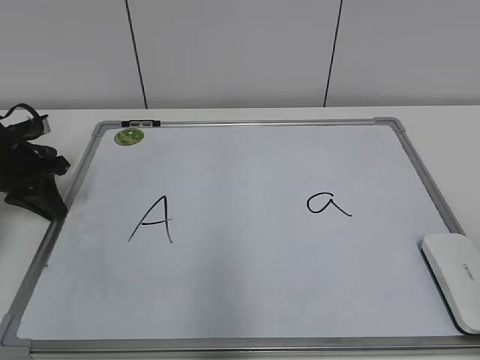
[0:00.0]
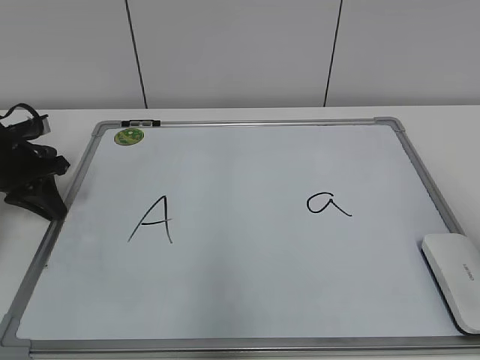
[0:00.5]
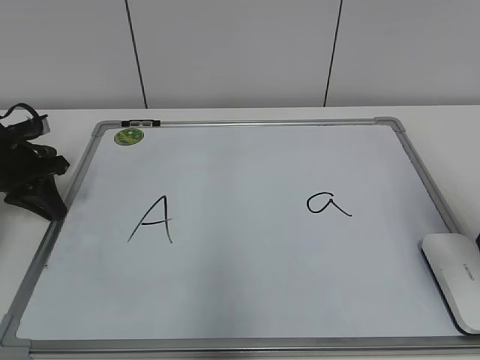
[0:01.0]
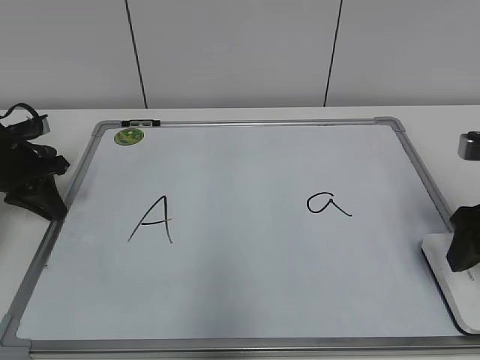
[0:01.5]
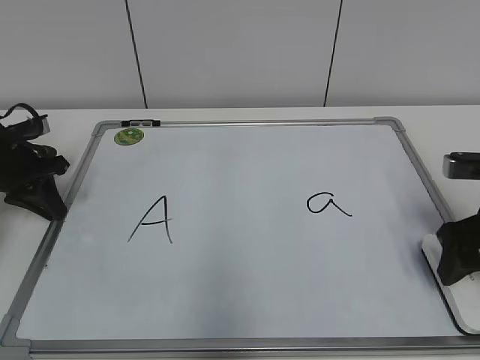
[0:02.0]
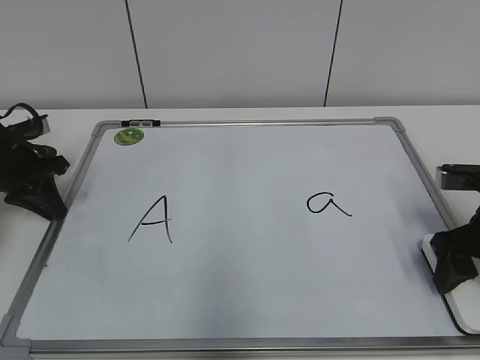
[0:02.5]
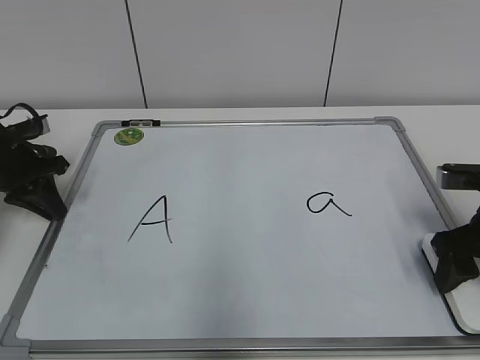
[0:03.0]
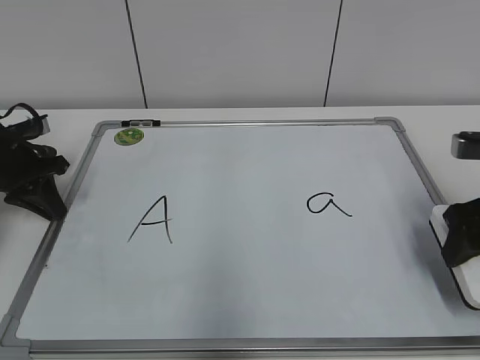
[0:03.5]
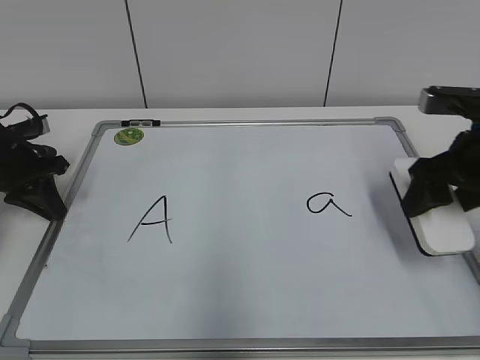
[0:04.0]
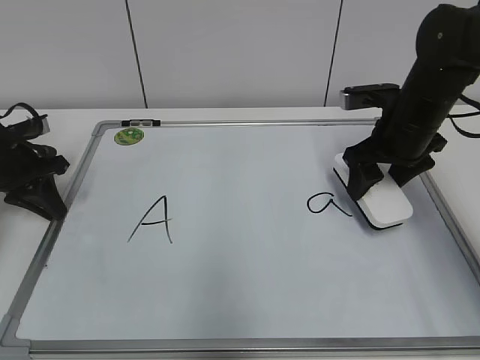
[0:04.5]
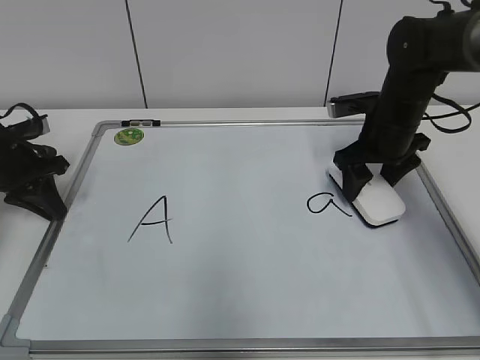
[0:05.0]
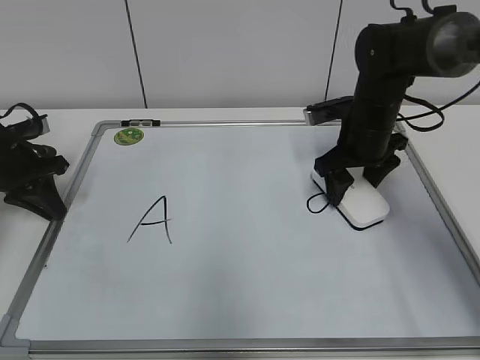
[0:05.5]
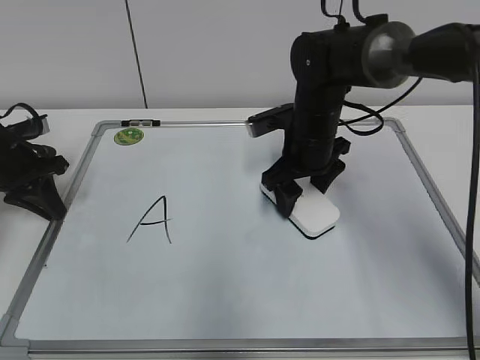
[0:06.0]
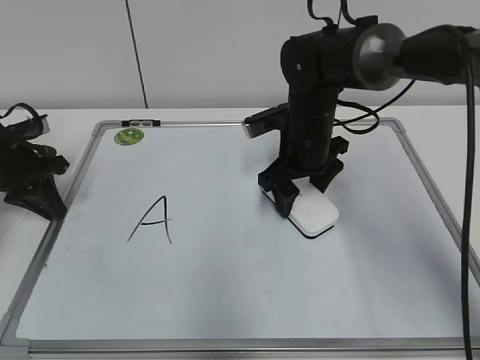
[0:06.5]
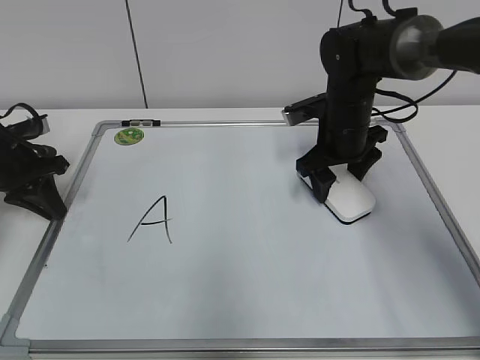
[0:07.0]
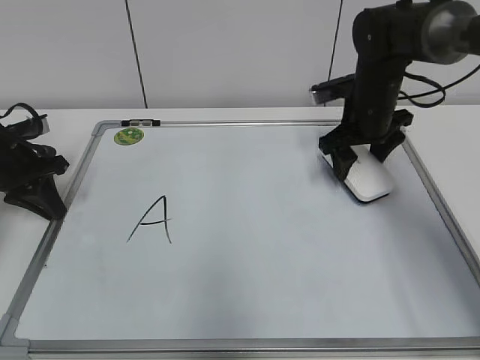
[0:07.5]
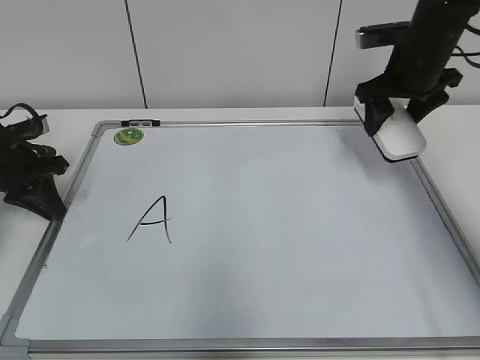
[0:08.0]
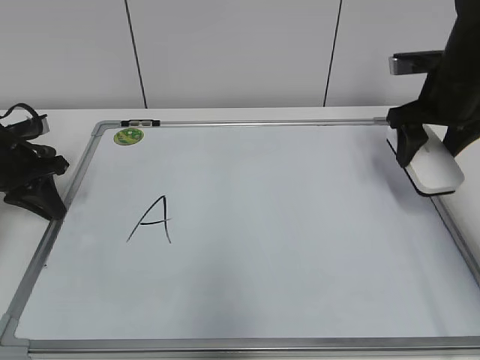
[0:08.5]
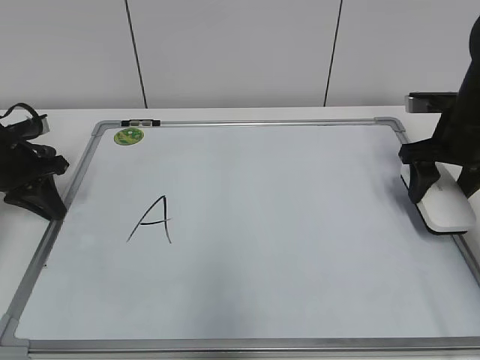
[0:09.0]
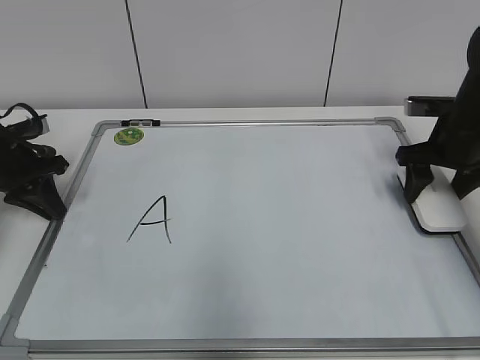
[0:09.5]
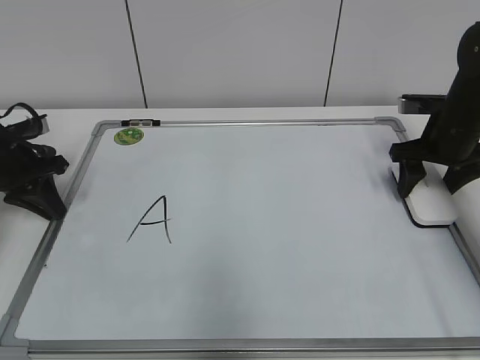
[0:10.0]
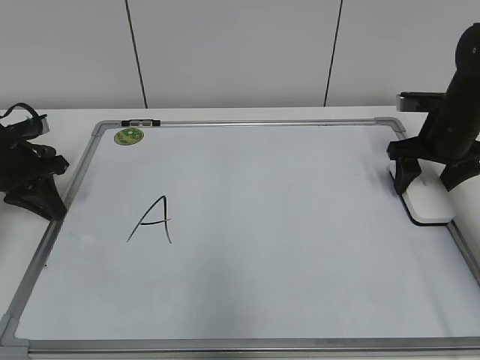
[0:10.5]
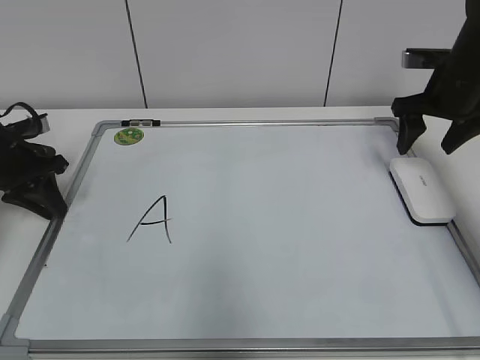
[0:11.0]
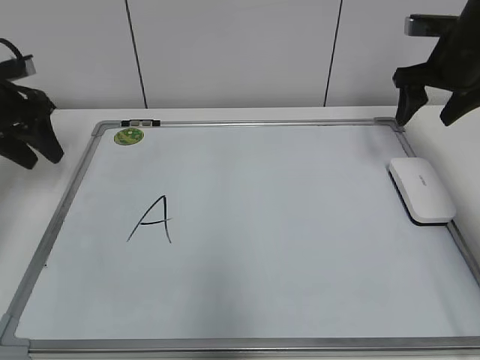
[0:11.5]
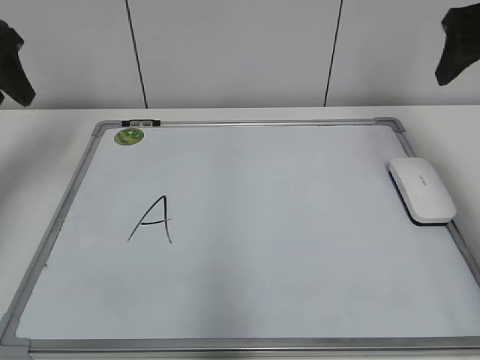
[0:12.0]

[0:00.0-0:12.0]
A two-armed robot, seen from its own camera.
Task of the whole recording: pick up the eraser on the blackboard and erase the letter "a".
Step, 0:00.0 to 0:02.5: Grab the eraser with your right hand.
Step, 0:03.0 to 0:06.5: Erase the letter a with your right hand.
Step, 0:07.0 to 0:09.5: Put down the eraser with your right hand.
0:00.0 to 0:02.0: The right gripper is displaced forward and downward by roughly 30 cm.
0:02.0 to 0:04.0: The right gripper ends up approximately 5 cm from where it was.
0:04.0 to 0:06.0: The right gripper goes roughly 20 cm to the left and forward.
0:06.0 to 0:08.0: The right gripper moves to the right and upward, some 15 cm.
0:08.0 to 0:10.0: The right gripper travels downward and to the right by some 10 cm.
0:10.0 to 0:12.0: Both grippers travel together upward, about 20 cm. The left gripper opens.

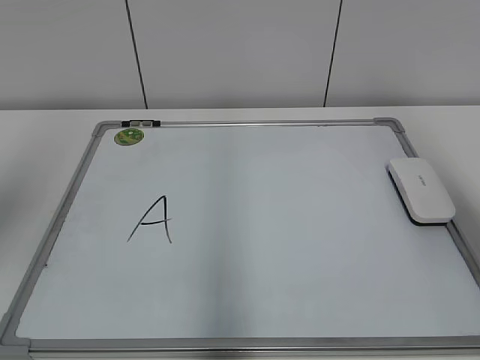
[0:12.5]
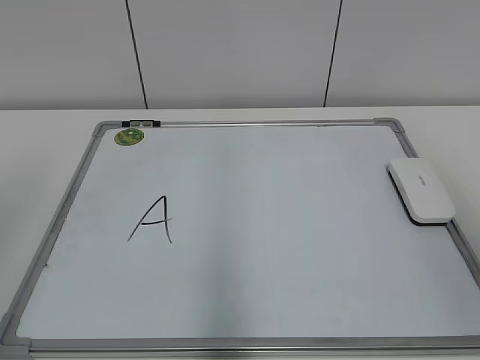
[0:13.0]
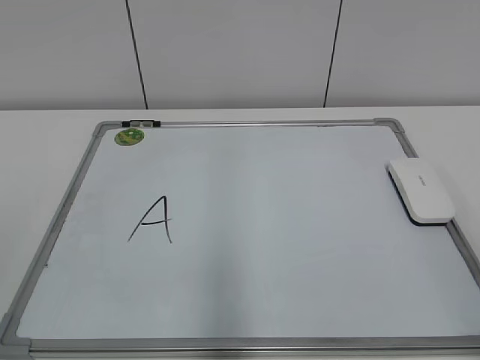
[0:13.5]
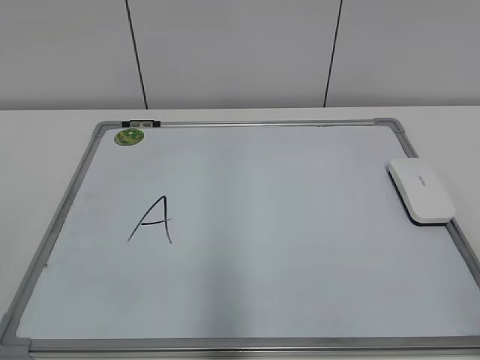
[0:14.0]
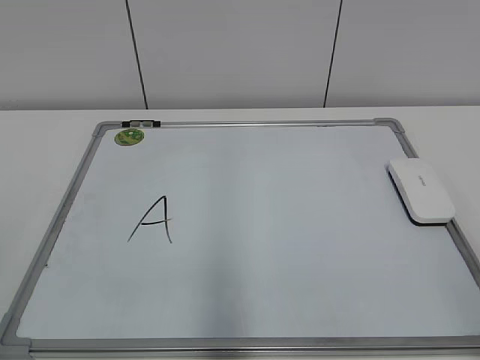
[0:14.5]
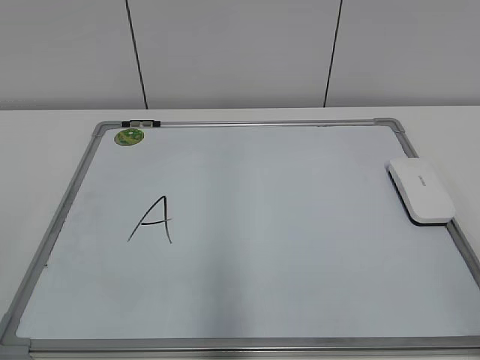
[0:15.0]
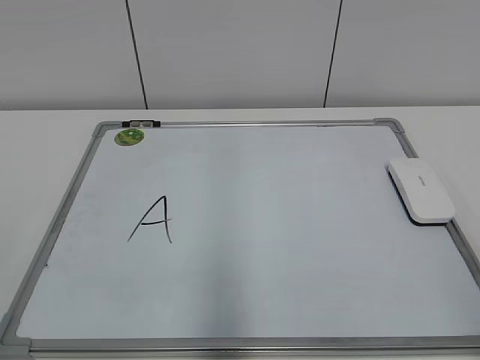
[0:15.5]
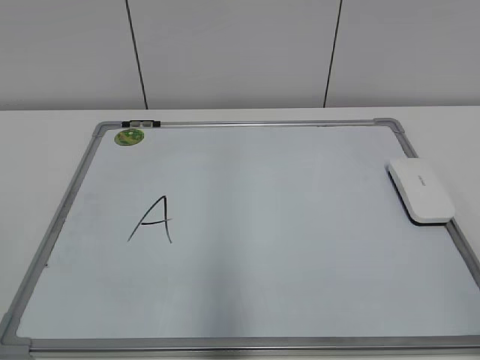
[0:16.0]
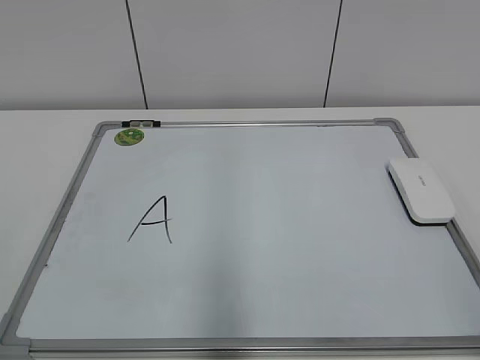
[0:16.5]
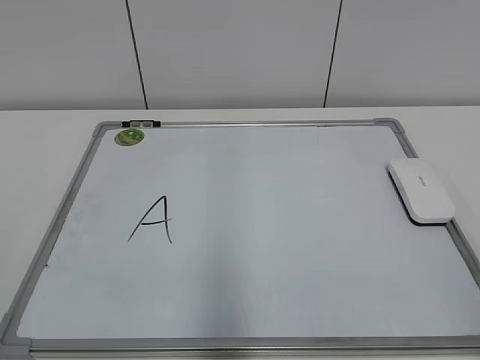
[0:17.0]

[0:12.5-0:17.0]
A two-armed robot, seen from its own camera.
Task of the whole recording: pick up the eraser on the blackboard and erase the letter "a".
0:12.5 to 0:14.5: Both grippers move backward and downward, about 25 cm.
